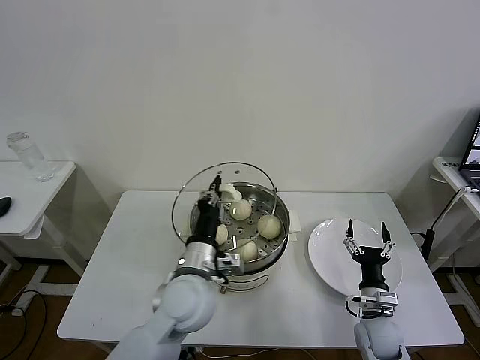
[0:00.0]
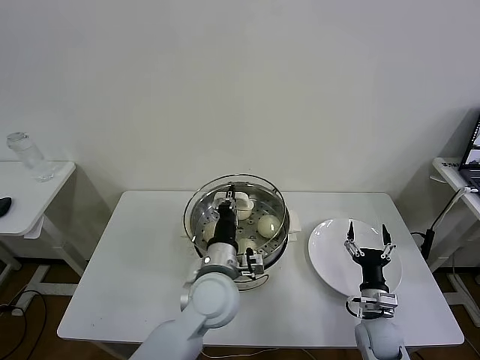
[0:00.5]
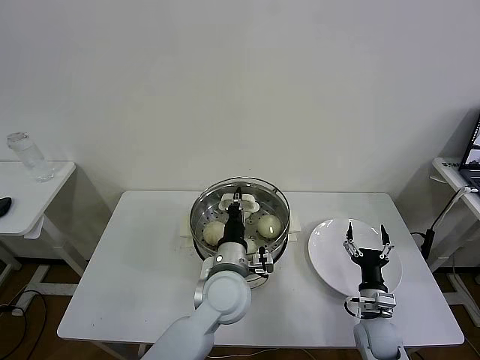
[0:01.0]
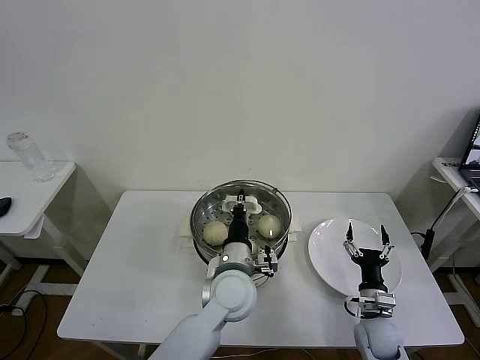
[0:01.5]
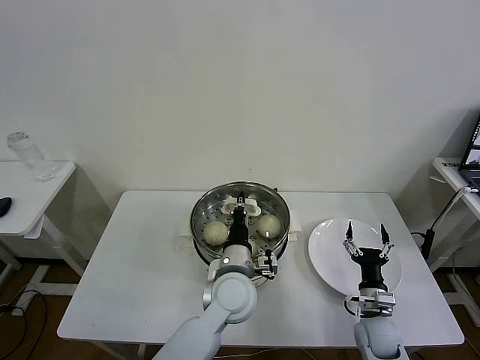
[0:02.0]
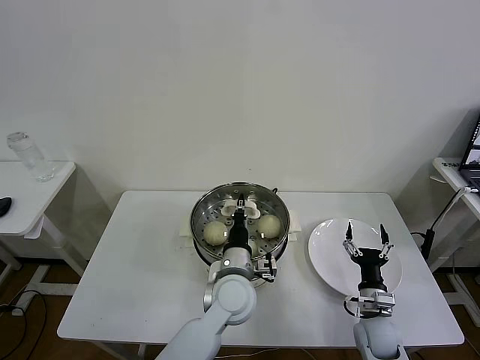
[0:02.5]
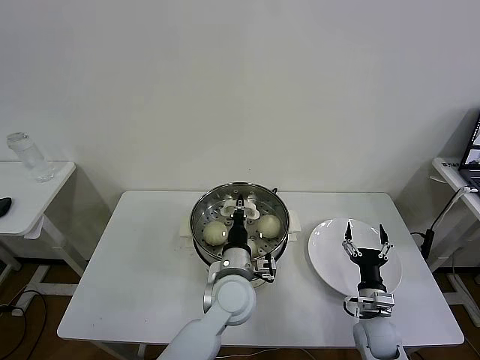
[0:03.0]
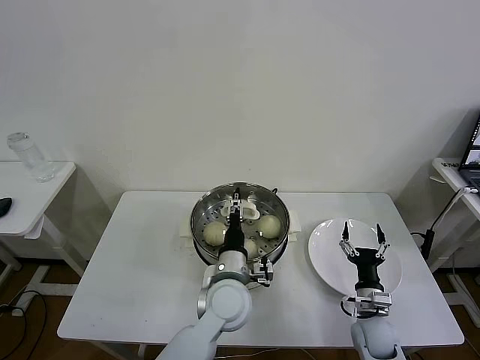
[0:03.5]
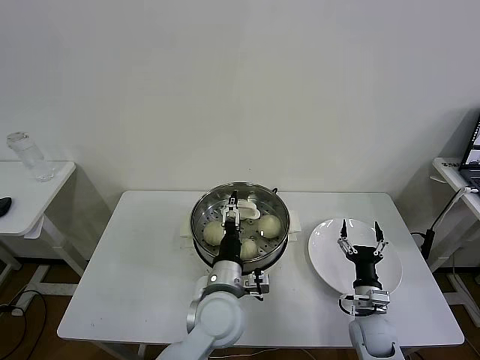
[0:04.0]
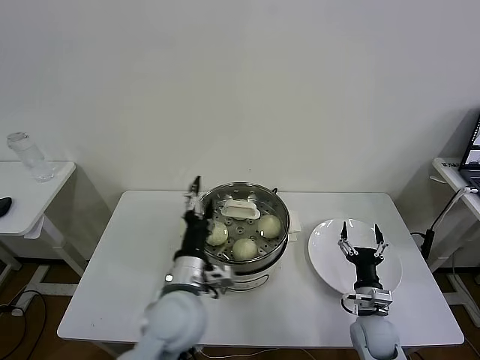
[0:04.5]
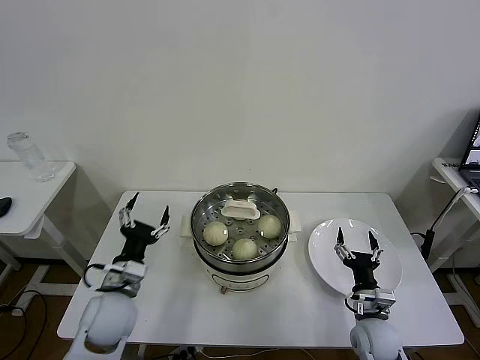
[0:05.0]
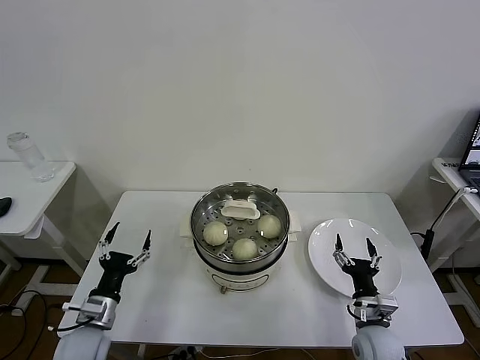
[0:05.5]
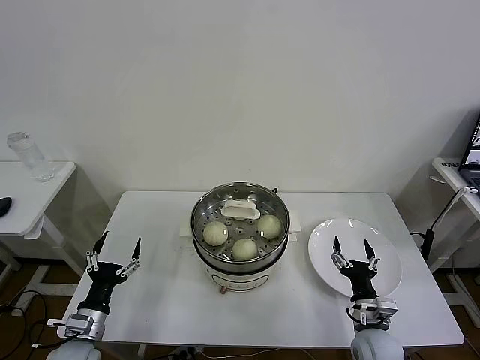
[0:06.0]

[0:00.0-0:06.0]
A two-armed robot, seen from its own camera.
Task of the whole recording: take steamed baozi put them in steamer then cover it.
Step, 0:00.0 to 0:03.5: Place the pot lid on the steamer with left gripper.
0:00.0 to 0:02.0: The left gripper is displaced to the right and downward by about 10 cm.
0:02.0 to 0:04.0: The left gripper opens its fingers.
0:04.0 to 0:06.0: The right gripper moves roughly 5 cm; the left gripper travels to the left by some 30 cm.
